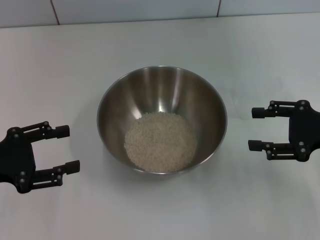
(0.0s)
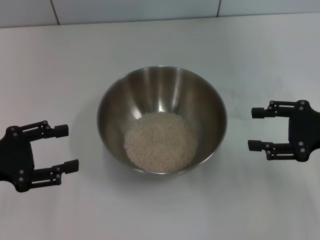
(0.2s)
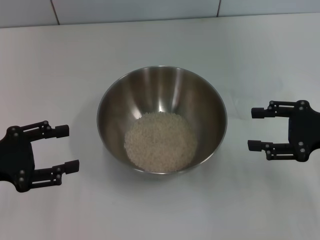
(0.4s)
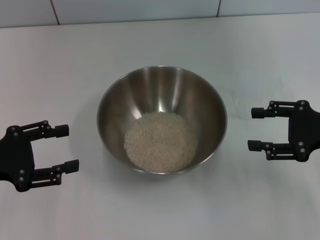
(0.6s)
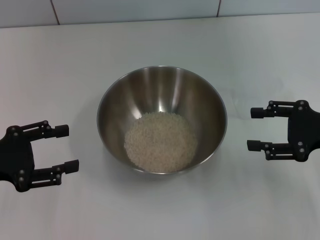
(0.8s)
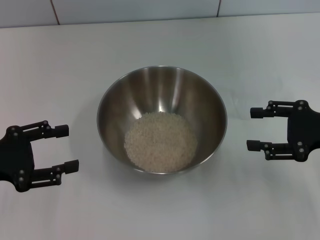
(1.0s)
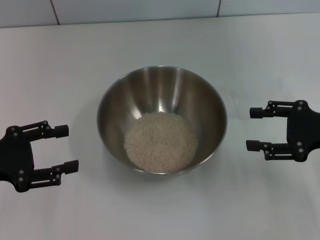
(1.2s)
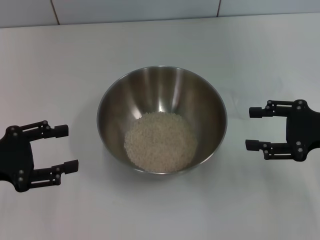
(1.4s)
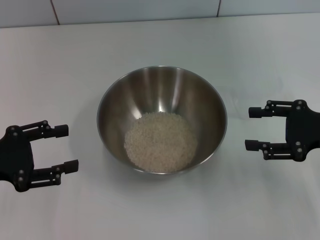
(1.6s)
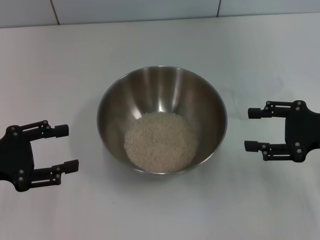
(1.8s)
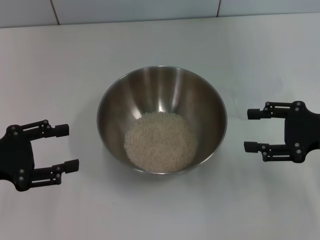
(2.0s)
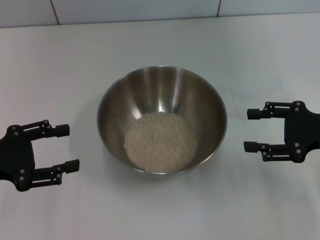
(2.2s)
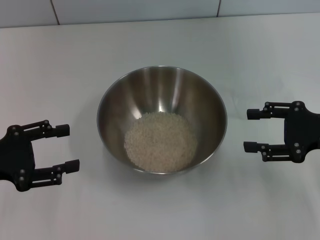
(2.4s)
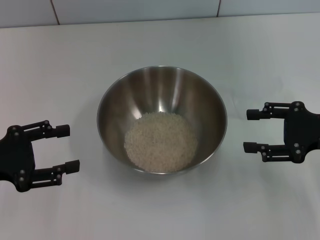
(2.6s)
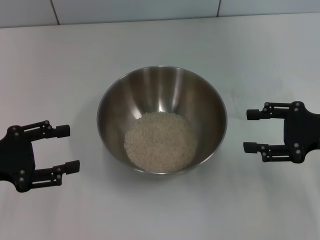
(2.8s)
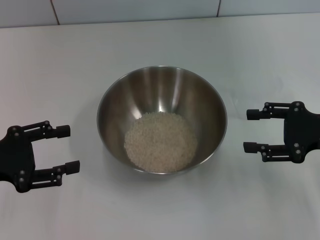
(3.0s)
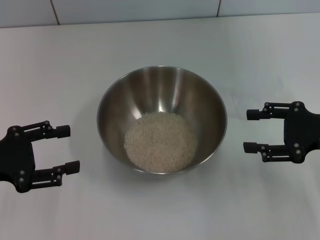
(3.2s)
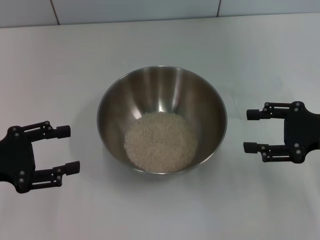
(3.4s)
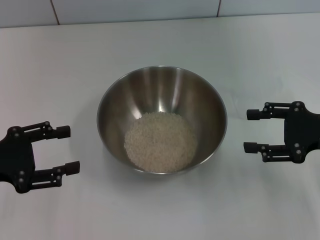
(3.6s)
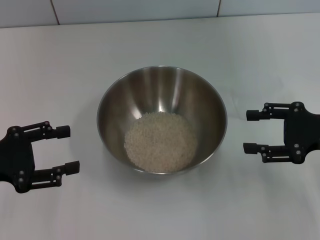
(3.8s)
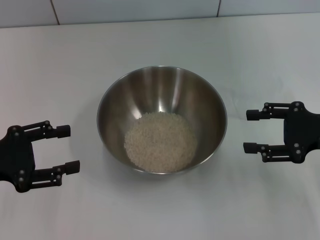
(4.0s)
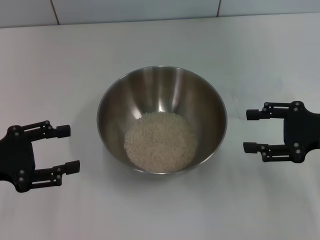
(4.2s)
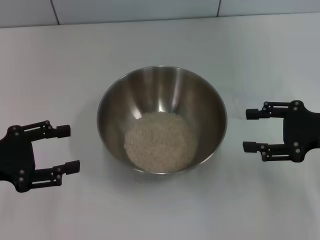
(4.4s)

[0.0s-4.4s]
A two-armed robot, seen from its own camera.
Task of the whole recording: Place the bowl in the middle of the table with one hand and pour the rice from the grain cup into it with the other hand.
0.0s to 4.4s: The two grippers keep their place.

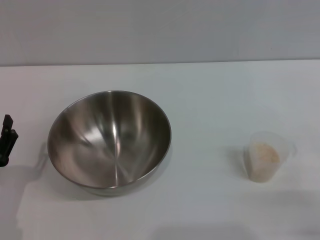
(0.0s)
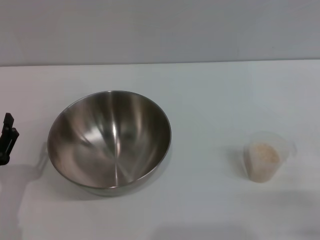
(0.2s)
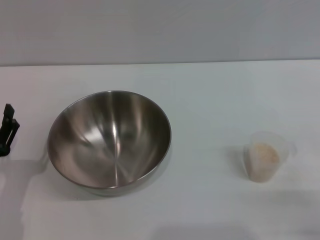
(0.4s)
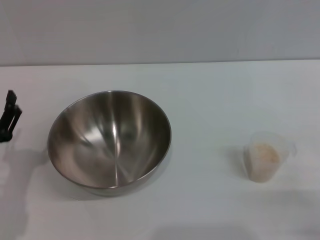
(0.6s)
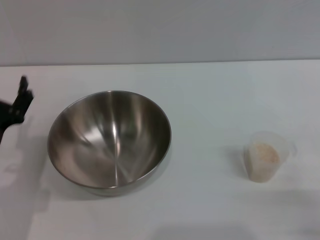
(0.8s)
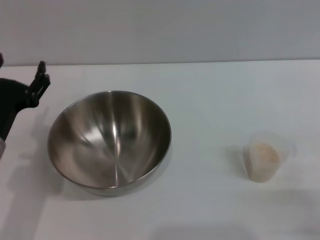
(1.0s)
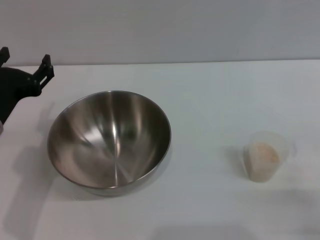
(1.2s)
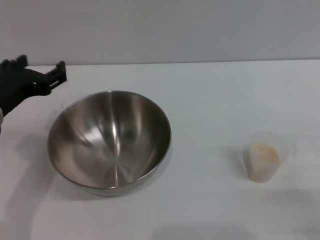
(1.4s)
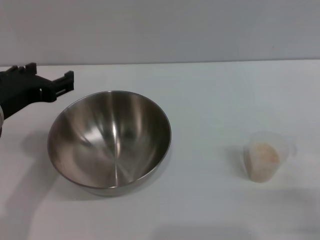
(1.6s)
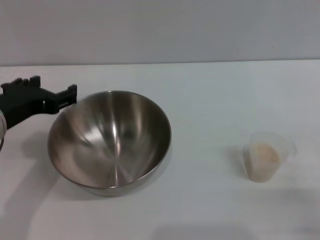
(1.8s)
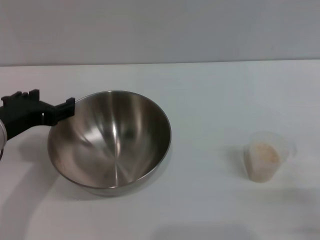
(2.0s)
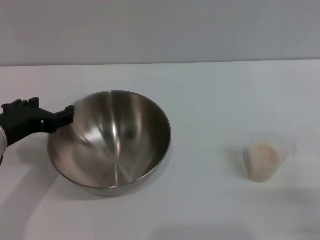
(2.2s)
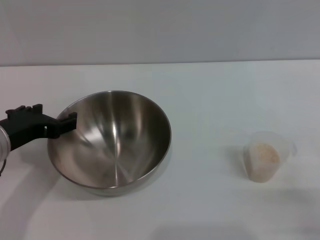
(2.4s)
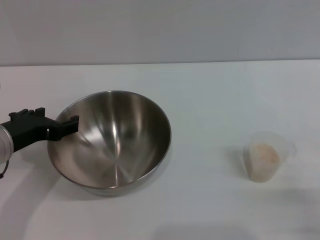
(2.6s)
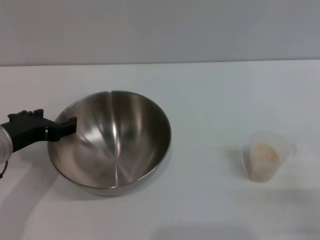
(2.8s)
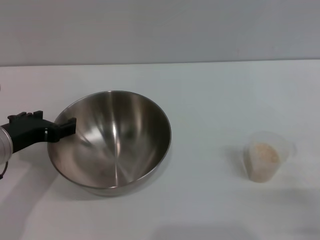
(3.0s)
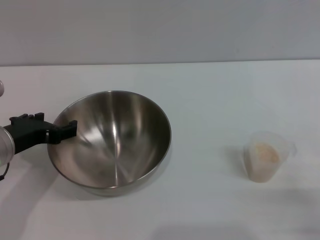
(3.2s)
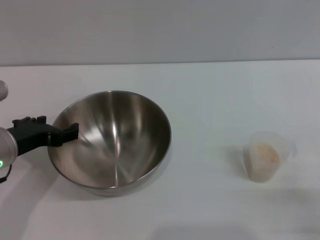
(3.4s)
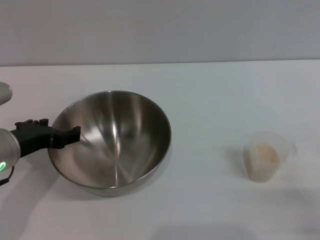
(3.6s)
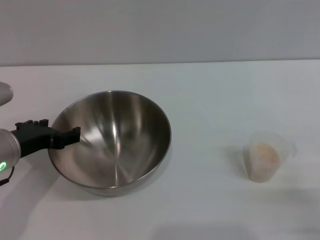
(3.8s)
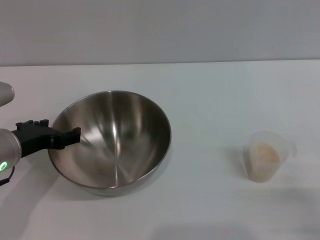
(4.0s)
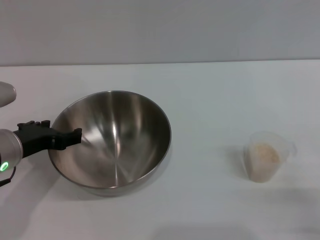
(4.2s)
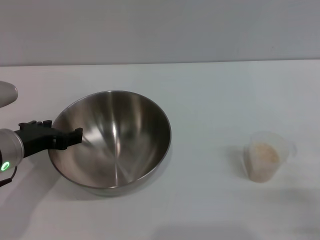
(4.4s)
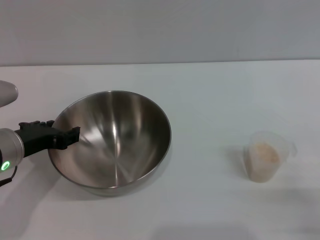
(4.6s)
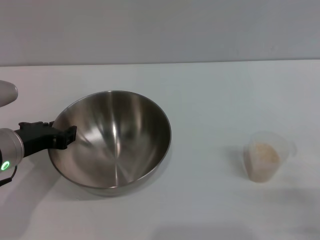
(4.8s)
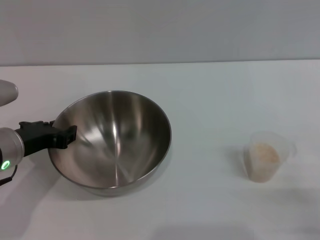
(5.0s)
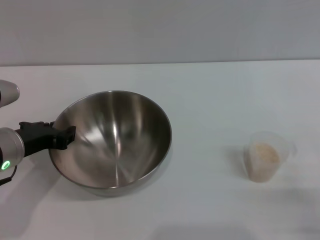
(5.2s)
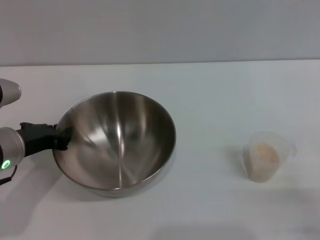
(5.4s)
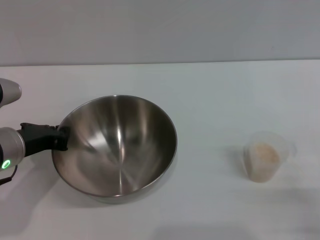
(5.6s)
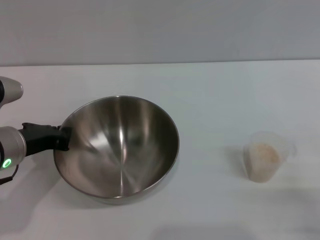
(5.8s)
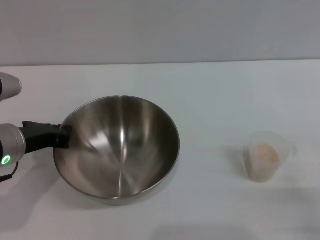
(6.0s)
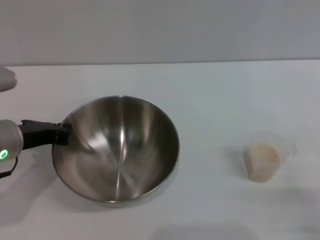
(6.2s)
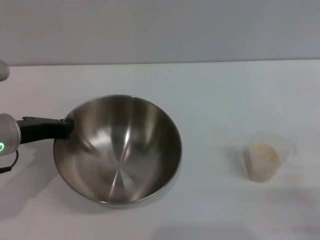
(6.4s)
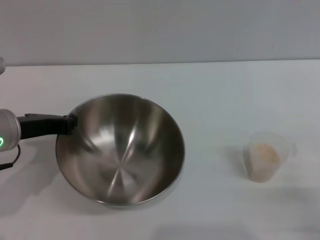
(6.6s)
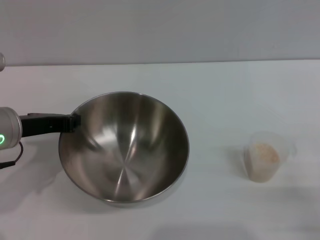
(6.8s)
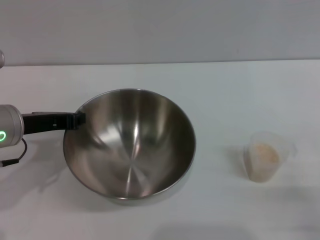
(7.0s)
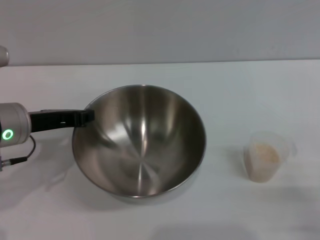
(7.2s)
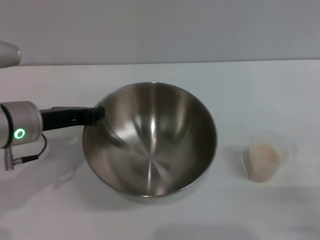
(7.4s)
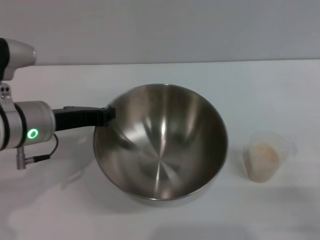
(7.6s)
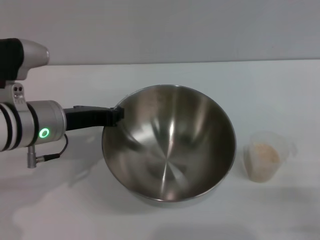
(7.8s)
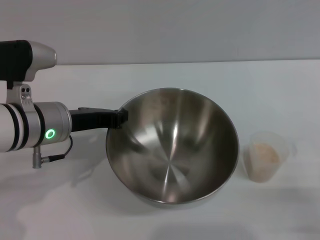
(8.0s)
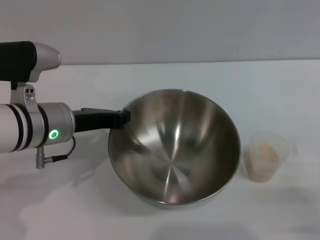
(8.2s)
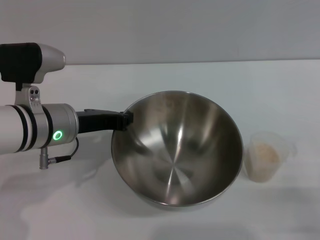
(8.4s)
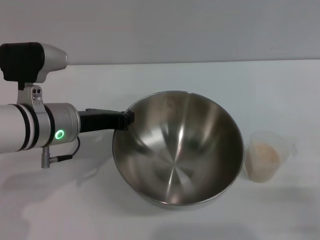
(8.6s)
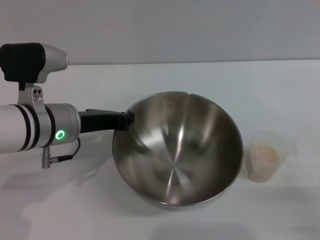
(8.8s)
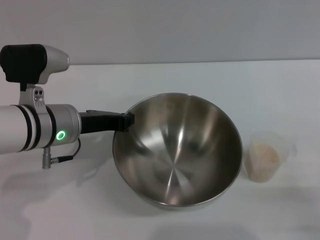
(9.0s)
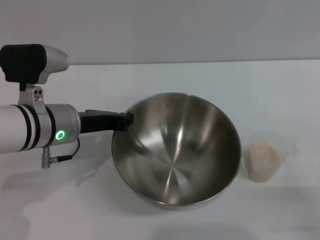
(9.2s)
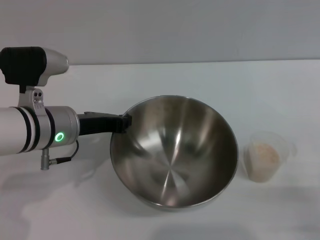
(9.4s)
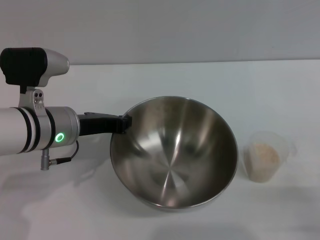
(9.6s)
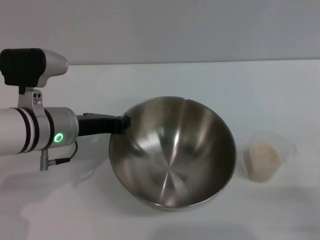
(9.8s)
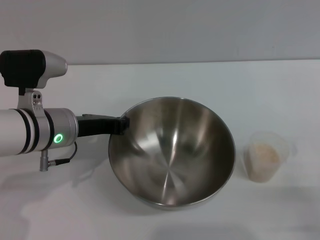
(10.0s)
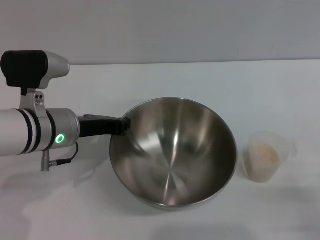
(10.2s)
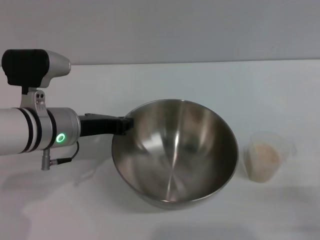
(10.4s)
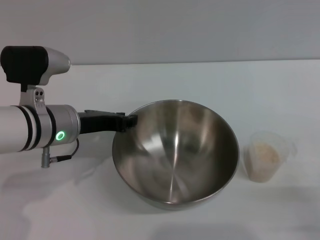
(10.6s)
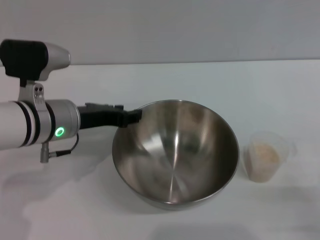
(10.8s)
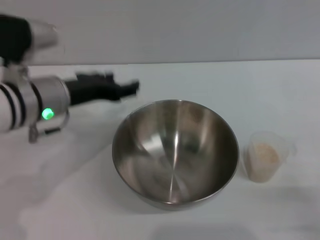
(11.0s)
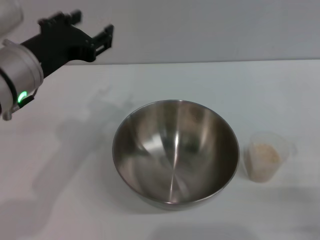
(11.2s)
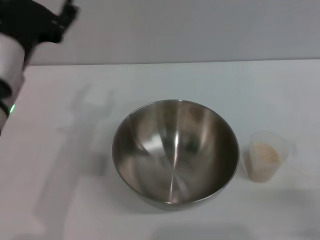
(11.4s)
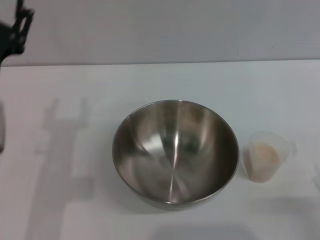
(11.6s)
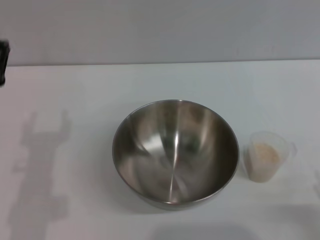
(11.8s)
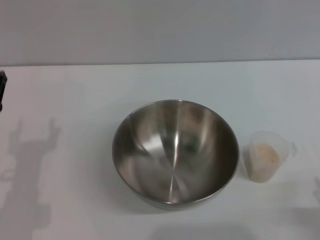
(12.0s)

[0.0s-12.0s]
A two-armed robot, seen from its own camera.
Task of the whole recording: Place the bowl in the middle of the table with one hand and pour the rice from the grain cup into it with the other hand.
Step, 0.0s to 6.8s: Pick up the bowl with the left gripper.
Step, 7.2s to 11.2s: Place the bowl in the center of view with the left gripper.
0.0s to 1.6s: The left gripper heads upward and forward, covering about 20 cm.
1.6s to 3.0s: The left gripper is displaced downward by about 5 cm.
3.0s to 4.4s: There are only small adjustments of the grippers.
4.4s to 6.0s: The left gripper closes up.
9.0s to 10.4s: Both grippers stay about where they are.
10.4s to 12.0s: The left gripper heads backward and to the left, covering some 10 cm, and opens its fingers.

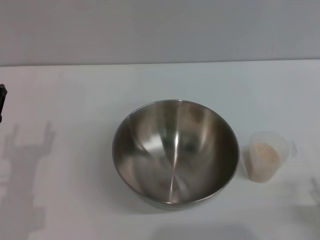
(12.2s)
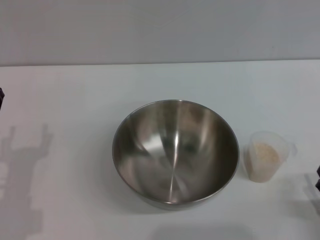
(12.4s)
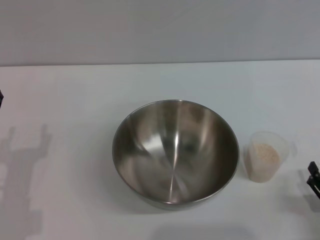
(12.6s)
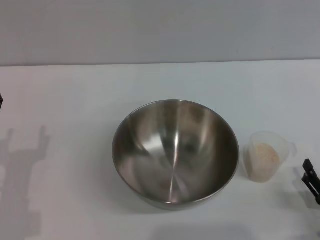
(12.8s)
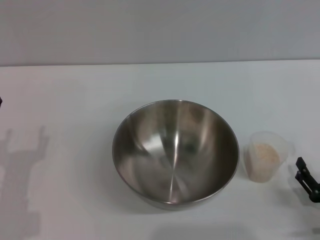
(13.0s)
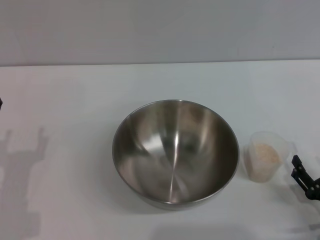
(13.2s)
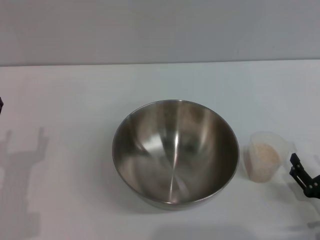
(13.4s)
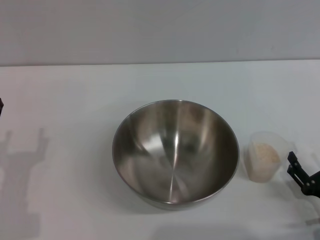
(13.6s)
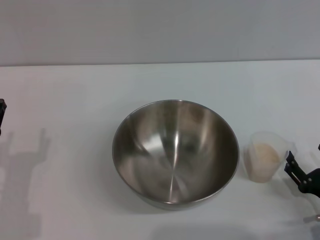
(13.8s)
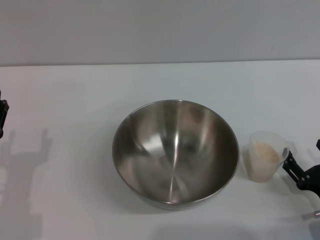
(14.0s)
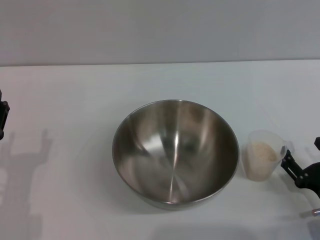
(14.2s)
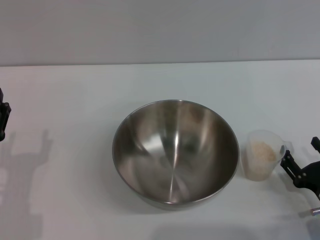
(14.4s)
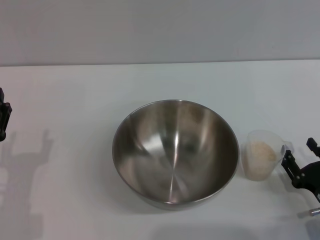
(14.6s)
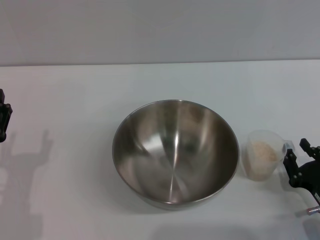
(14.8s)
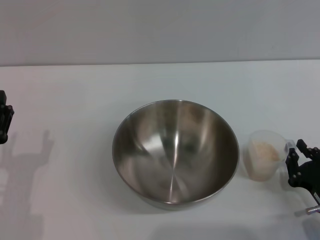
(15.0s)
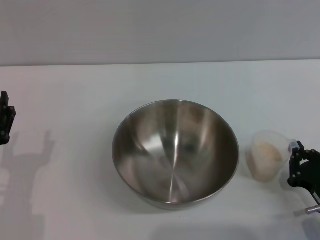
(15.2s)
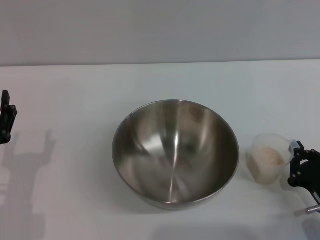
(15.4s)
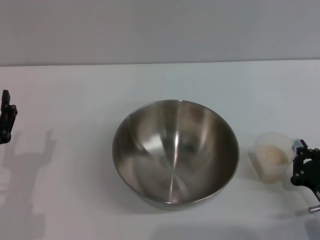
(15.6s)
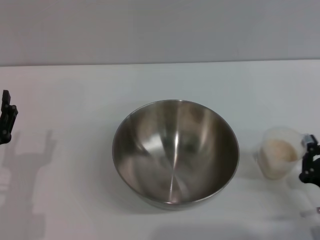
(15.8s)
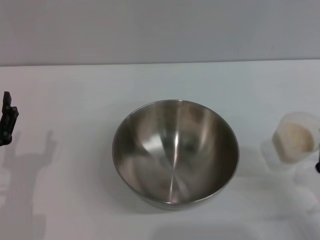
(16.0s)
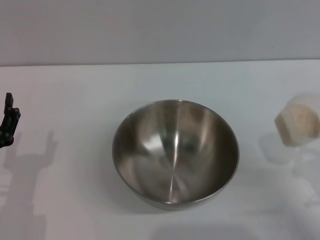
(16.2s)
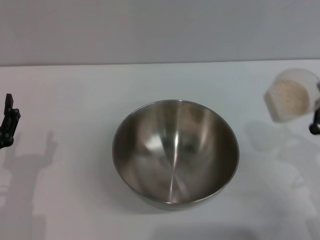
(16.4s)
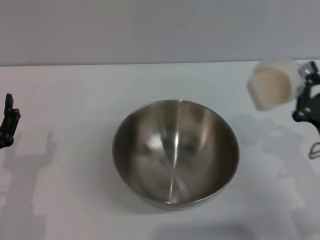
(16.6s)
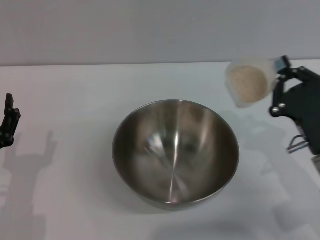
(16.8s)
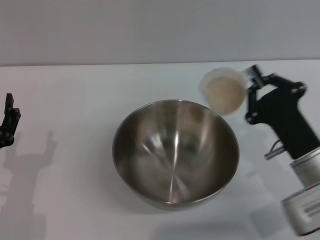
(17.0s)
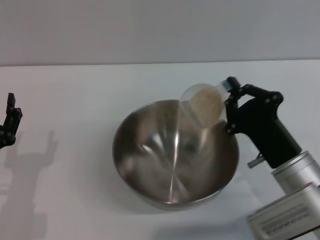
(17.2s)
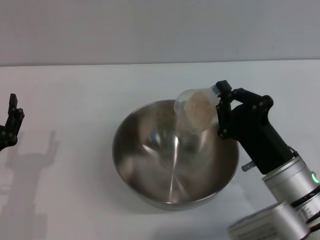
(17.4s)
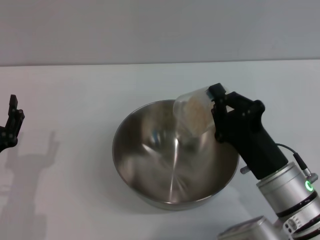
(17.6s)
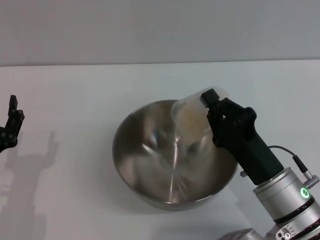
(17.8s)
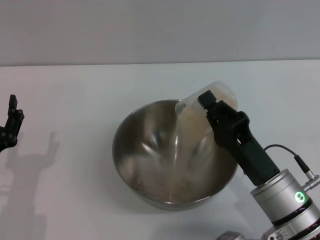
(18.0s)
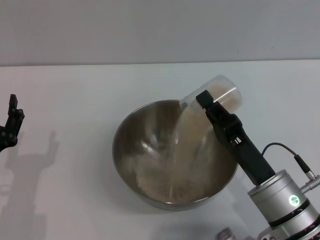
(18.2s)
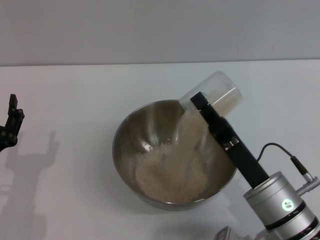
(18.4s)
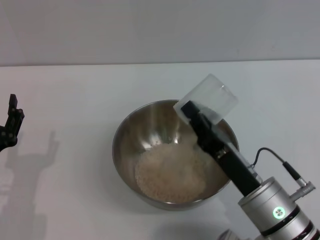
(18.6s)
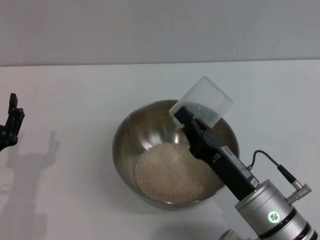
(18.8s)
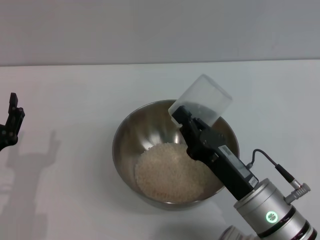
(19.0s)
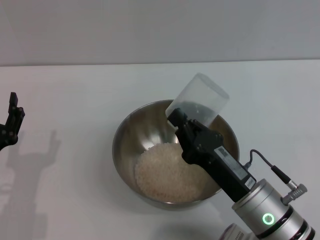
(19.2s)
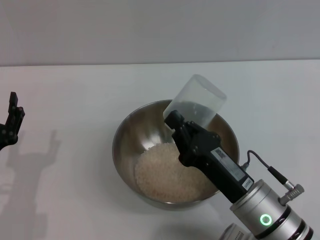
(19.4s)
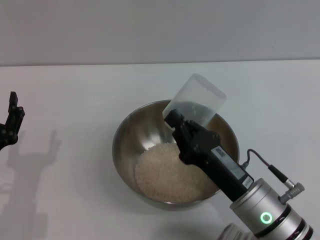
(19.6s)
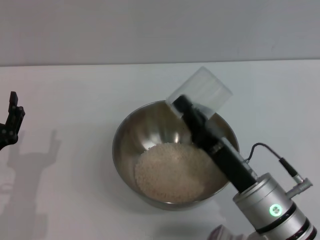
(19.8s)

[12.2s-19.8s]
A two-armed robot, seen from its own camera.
Task of the whole recording: Place the bowl in the middle of the table with one hand and pour the rice from the grain cup into it with the other hand.
Step, 12.2s to 16.0s: Pick up the cup with rice in it with the right gripper.
Step, 16.2s to 19.6s: Pour the rice from the cup into the bowl with the right gripper.
12.2s to 13.8s: The right gripper shifts roughly 5 cm forward.
13.8s to 15.2s: The right gripper closes its fingers.
15.2s to 16.8s: The right gripper travels upward and forward by roughly 10 cm.
16.8s to 18.2s: The right gripper goes roughly 10 cm to the left.
